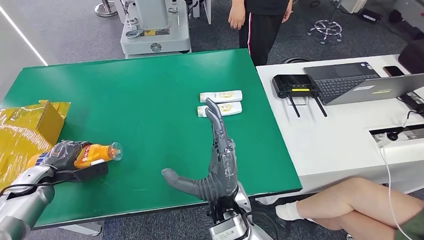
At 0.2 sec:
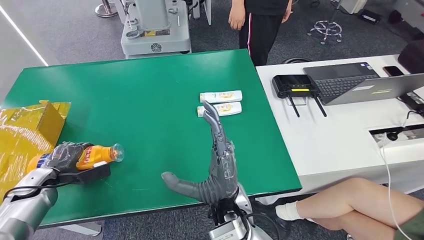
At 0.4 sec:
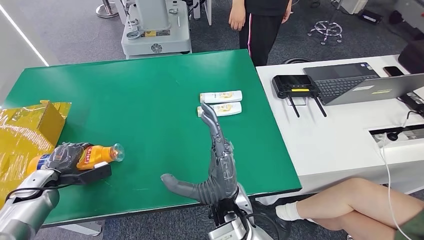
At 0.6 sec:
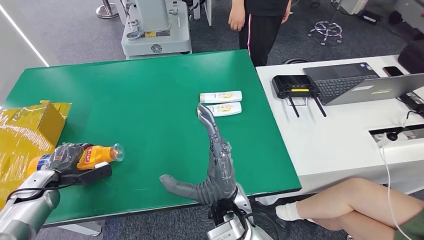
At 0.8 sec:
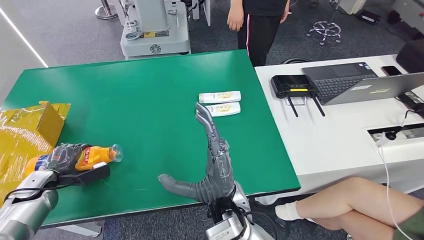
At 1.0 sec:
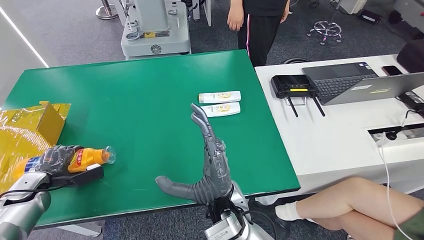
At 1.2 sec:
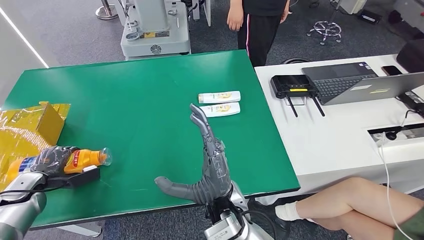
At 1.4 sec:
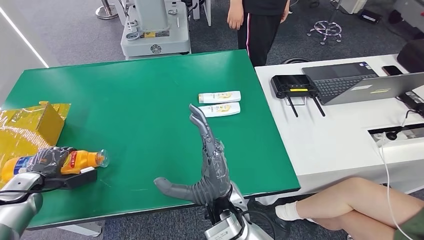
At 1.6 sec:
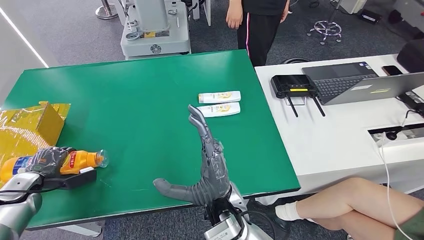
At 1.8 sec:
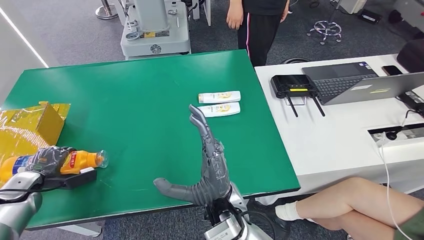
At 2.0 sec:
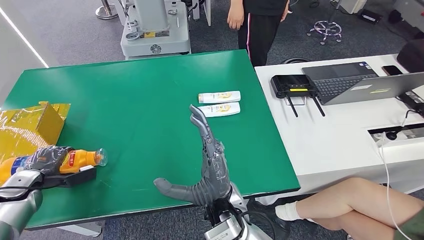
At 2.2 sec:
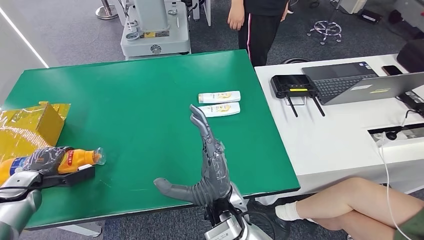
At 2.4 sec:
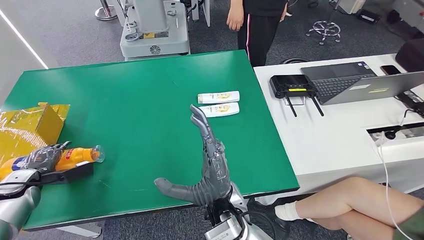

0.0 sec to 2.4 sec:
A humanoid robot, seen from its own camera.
Step, 0.0 sec to 2.4 sec: Turn the bottle to the front side.
0.0 sec to 1.2 sec: The hands stay close to where they were, moving slightly.
1.2 sec to 2.4 sec: The hands move only a little.
